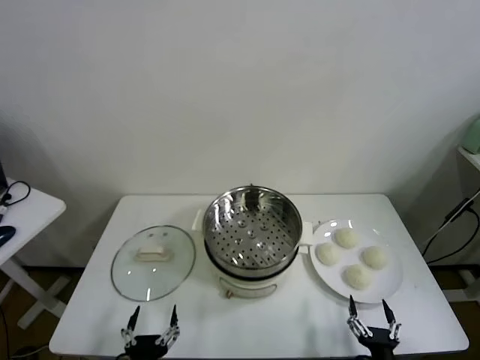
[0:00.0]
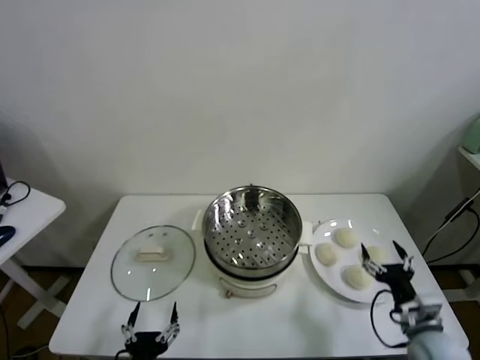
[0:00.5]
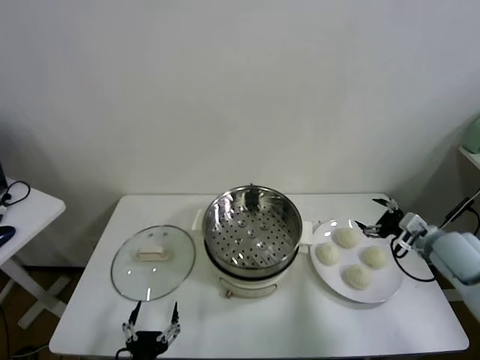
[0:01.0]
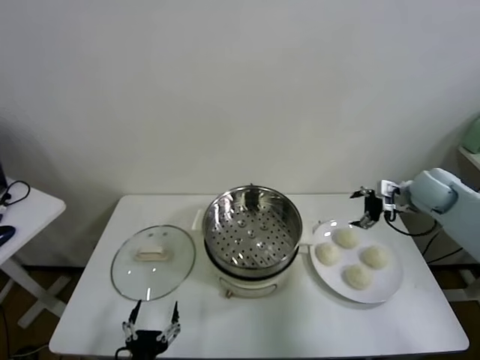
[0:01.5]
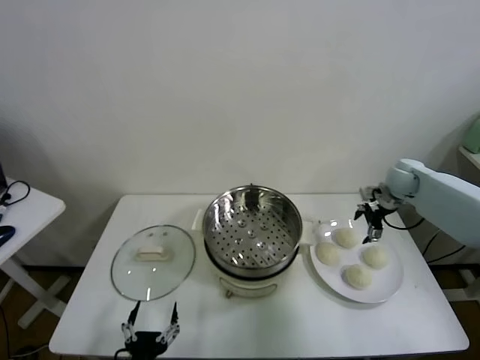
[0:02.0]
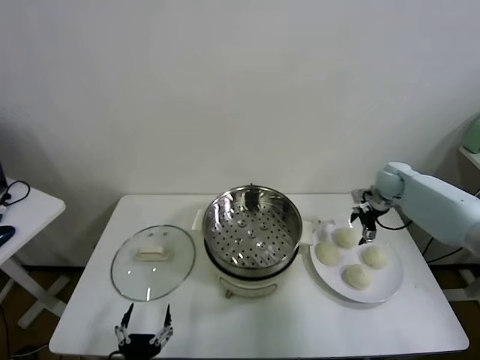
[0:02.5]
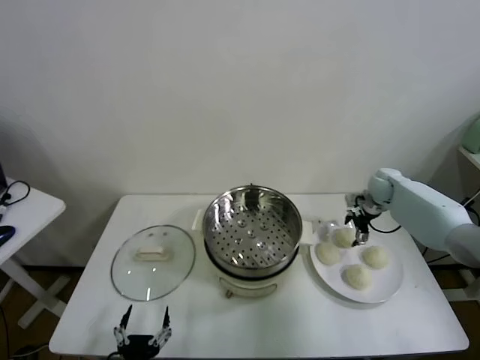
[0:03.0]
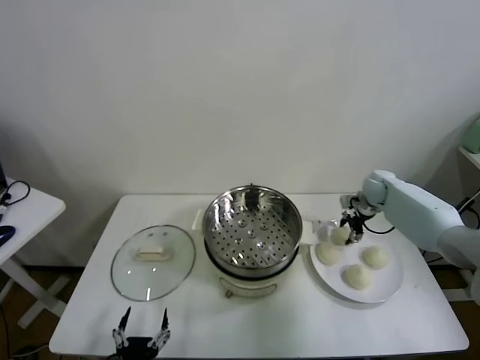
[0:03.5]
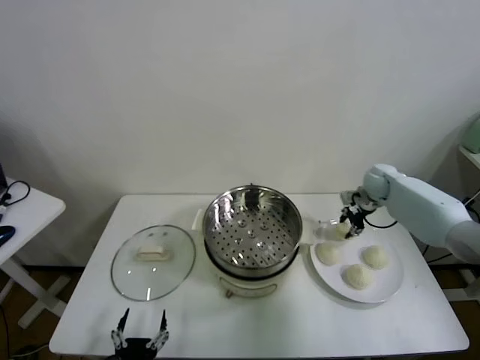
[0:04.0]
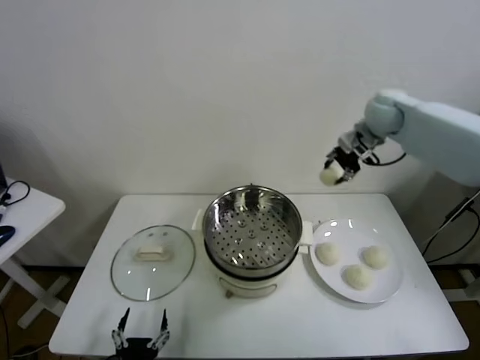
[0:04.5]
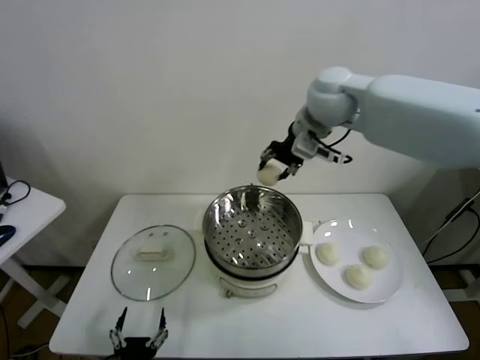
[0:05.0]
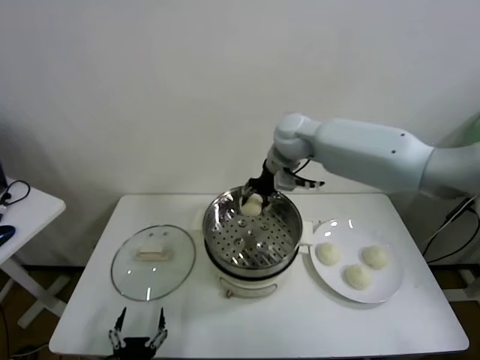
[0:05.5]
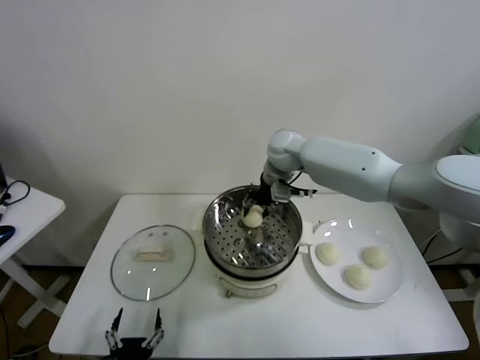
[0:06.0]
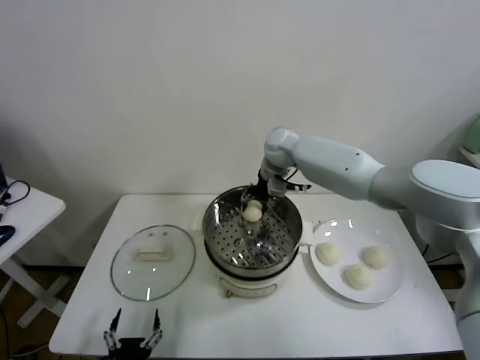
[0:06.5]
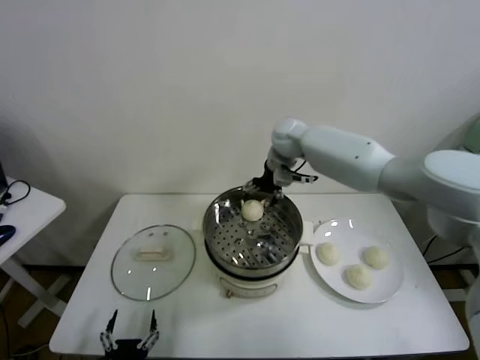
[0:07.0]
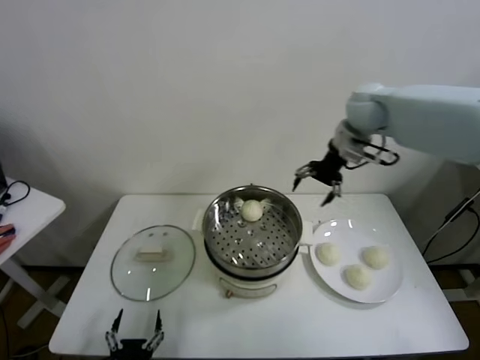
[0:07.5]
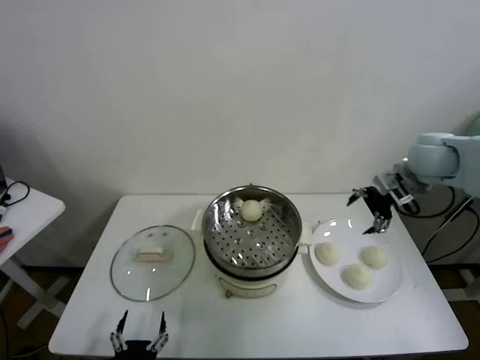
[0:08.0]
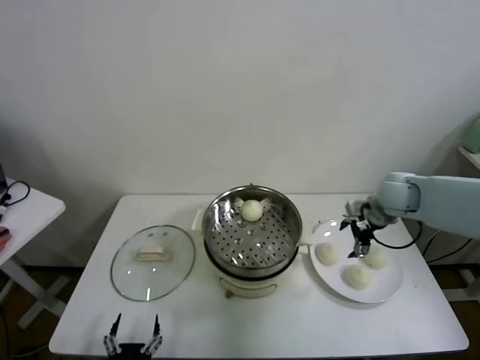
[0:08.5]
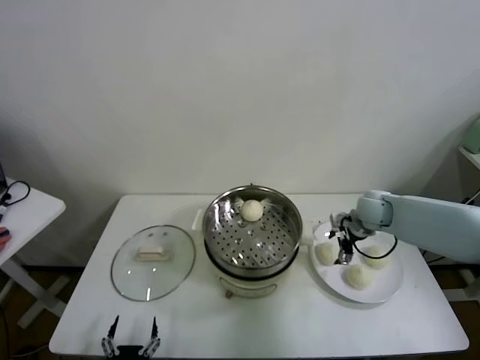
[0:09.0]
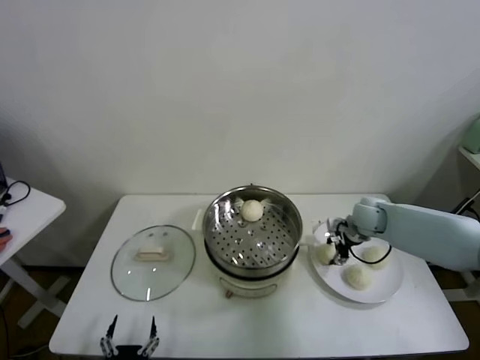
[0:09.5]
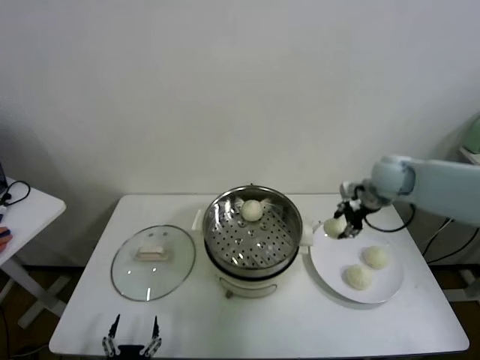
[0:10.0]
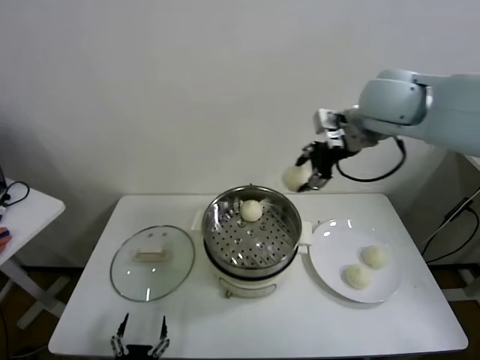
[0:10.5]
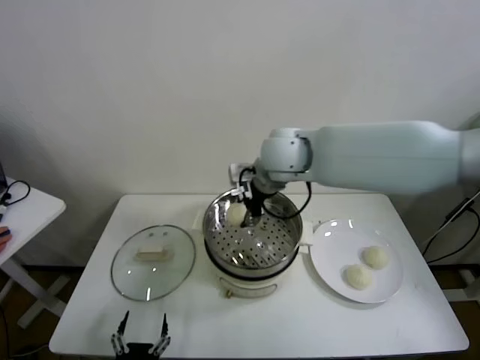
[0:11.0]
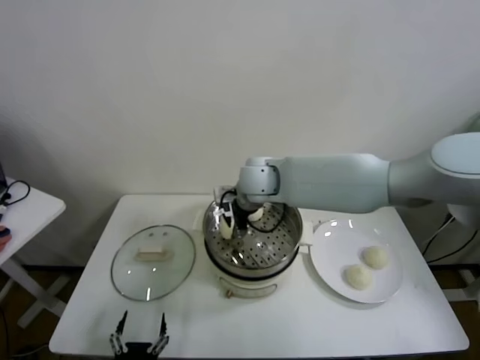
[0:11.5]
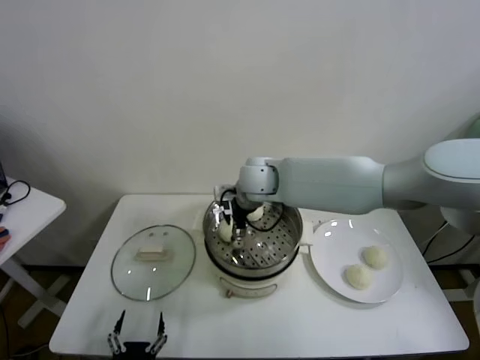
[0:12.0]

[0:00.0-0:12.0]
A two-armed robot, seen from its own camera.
Task of the whole recording: take steamed baozi put them in steamer.
Step, 0:00.0 to 0:03.0: Grasp the baozi in the plate with right gripper.
Step, 0:04.0 to 0:07.0: Place the baozi on the steamer with right gripper.
Step, 0:07.5 to 0:09.0: Grasp the baozi in the plate with right gripper.
0:02.0 to 0:04.0: The right gripper closes.
0:04.0 to 0:06.0: The right gripper goes some 25 cm to the left.
0:06.0 to 0:08.0: The right gripper goes some 30 cm to the right and backward, and opens its fingers.
0:08.0 to 0:10.0: The right gripper goes downward and returns, approximately 20 cm each way, and closes.
0:10.0 to 0:12.0: The right gripper goes some 30 cm to the left, and opens up.

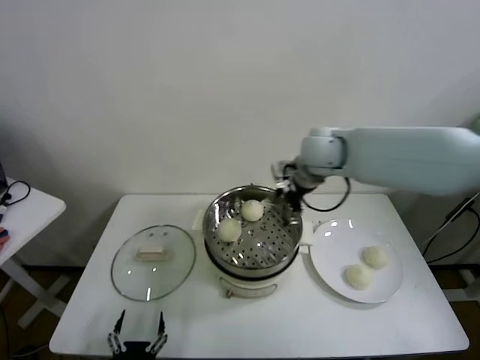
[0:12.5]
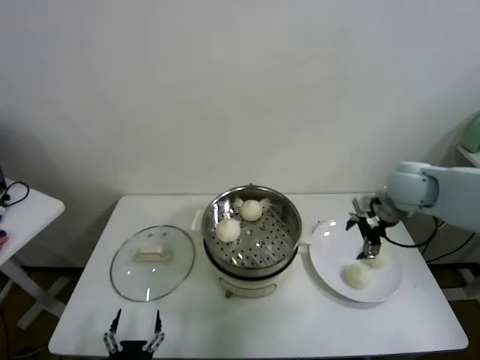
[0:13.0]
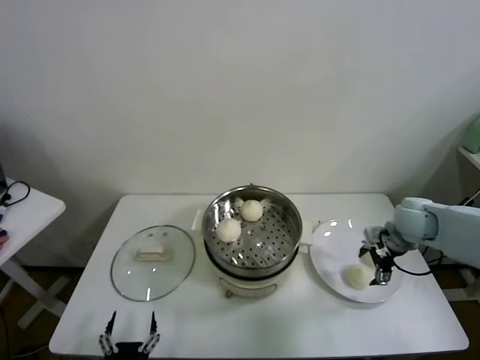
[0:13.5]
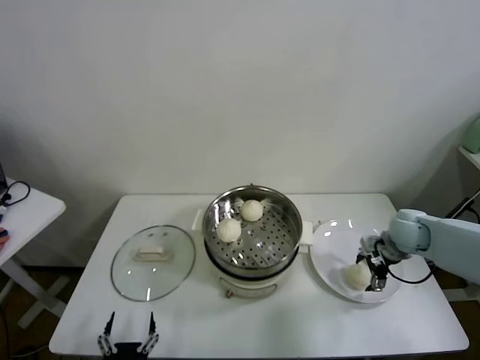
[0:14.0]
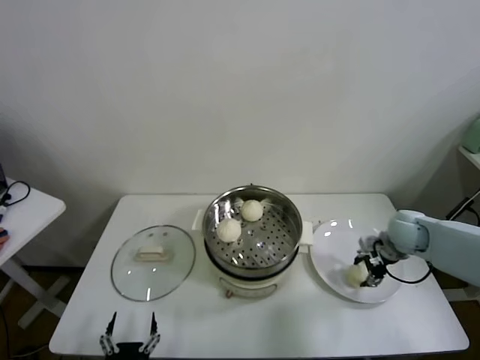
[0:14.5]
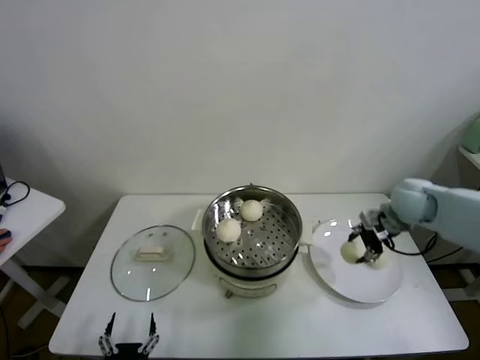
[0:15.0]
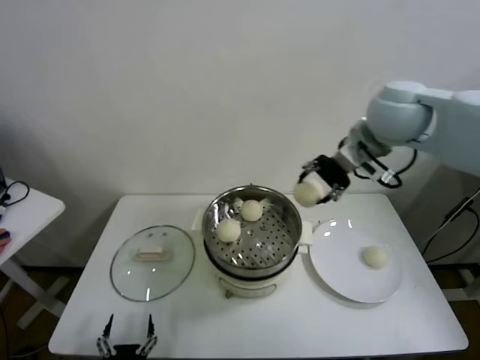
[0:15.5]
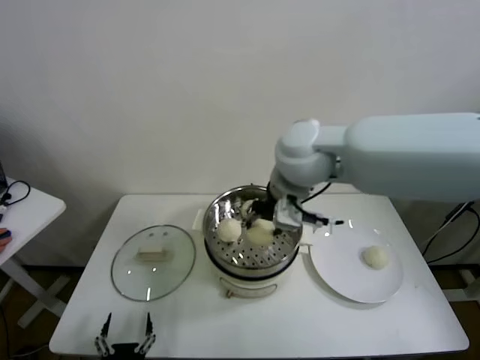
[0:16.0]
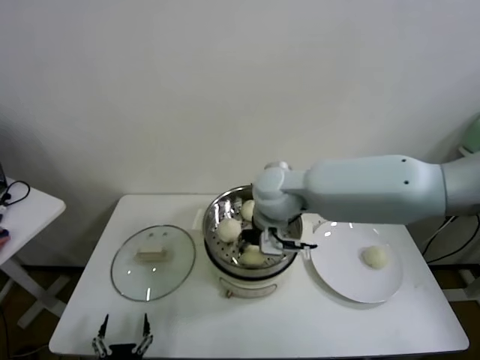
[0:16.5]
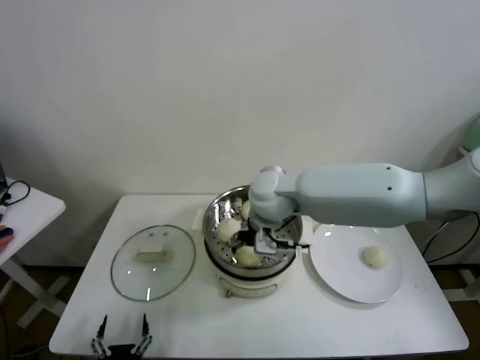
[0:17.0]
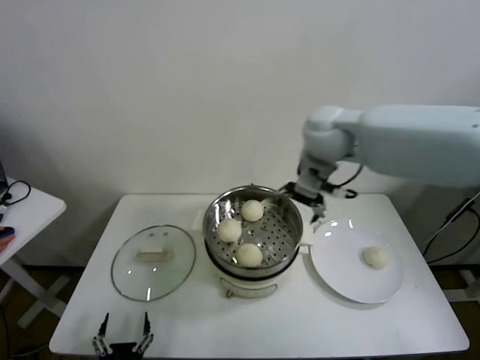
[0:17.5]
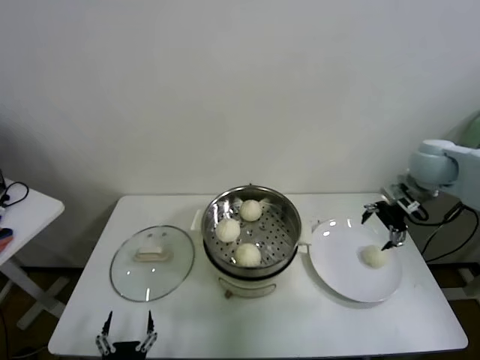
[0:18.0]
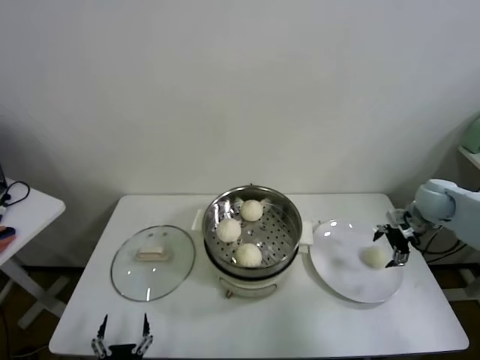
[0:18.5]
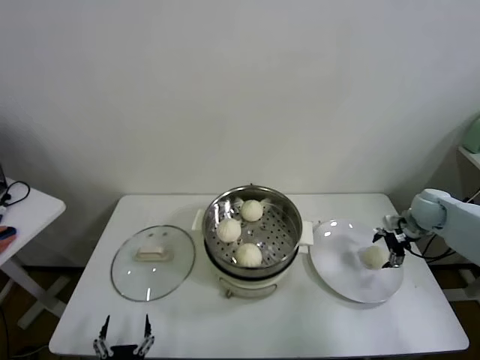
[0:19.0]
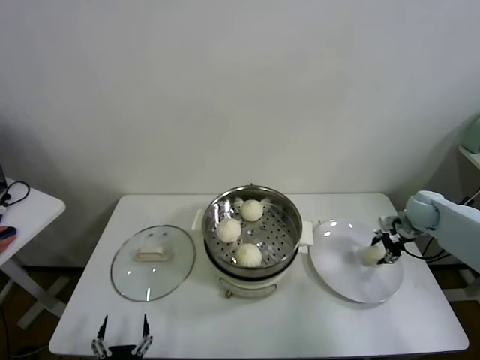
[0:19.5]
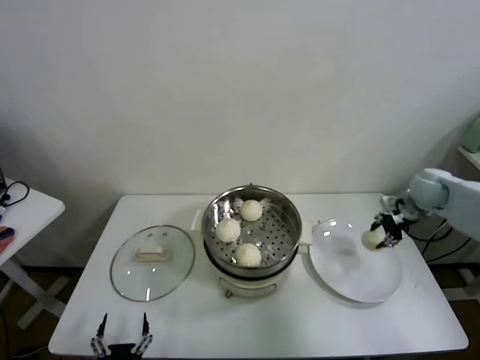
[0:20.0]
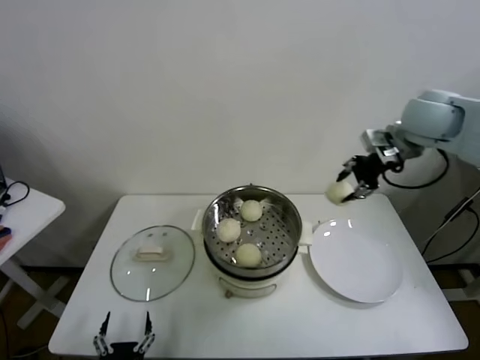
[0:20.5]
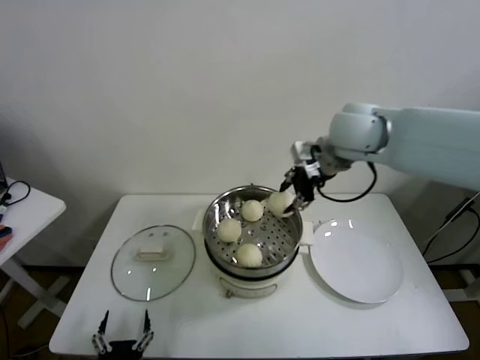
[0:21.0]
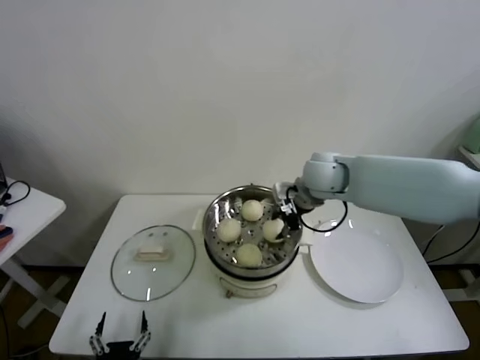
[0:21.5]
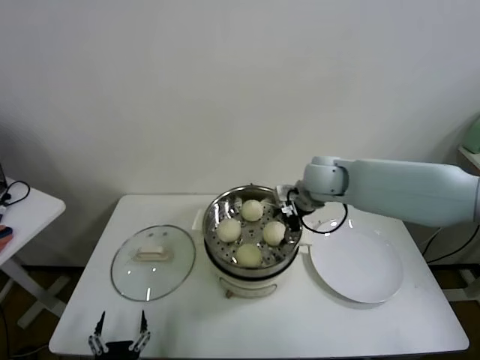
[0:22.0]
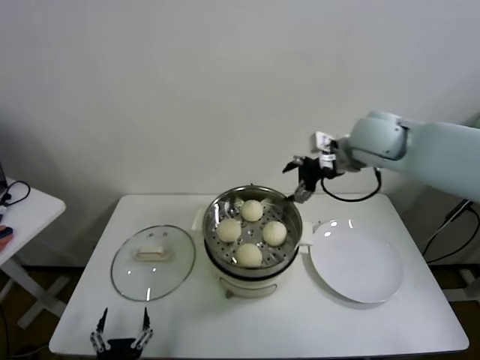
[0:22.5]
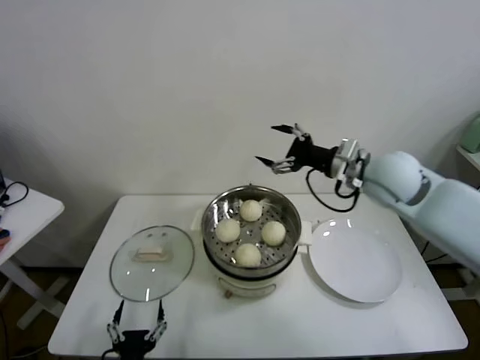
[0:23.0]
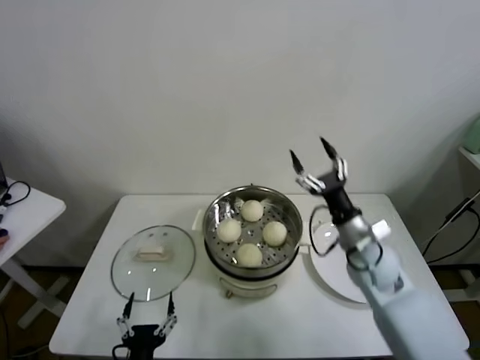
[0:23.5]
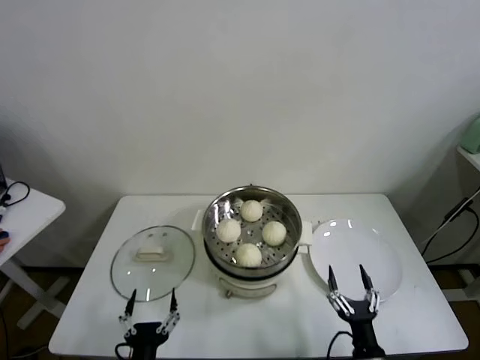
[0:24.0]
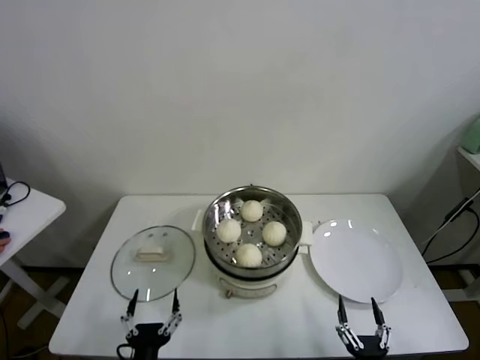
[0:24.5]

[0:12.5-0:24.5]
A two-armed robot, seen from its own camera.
Task of the whole recording: take steamed baozi put them in steamer.
Step, 0:12.5 to 0:14.0: Grasp the baozi in the plate with right gripper.
Step, 0:14.5 to 0:17.0: Place the baozi on the steamer with right gripper.
Step, 0:17.5 to 0:19.5: Grasp the baozi in the plate with right gripper.
Step, 0:20.0 to 0:22.0: Place the baozi on the steamer with right gripper.
0:12.5 to 0:14.5: The right gripper travels to the right and downward by approximately 30 cm, and closes up.
0:14.5 to 0:16.5: The right gripper shifts about 35 cm to the left and upward.
0:16.5 to 0:18.5: The right gripper shifts some 40 cm to the right, and opens up.
0:18.5 to 0:20.5: The right gripper moves upward and to the left, some 25 cm, and closes up.
0:20.5 to 0:22.5: The right gripper travels to the left by some 10 cm, and opens up.
0:22.5 to 0:24.5: The right gripper is displaced downward and backward by about 60 cm.
